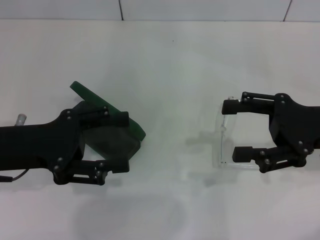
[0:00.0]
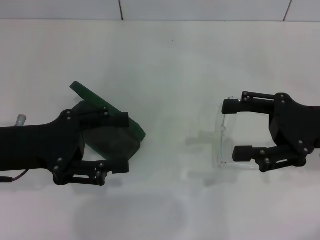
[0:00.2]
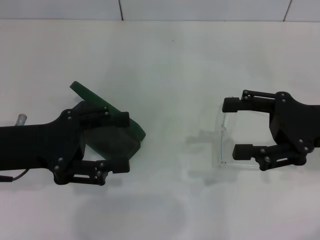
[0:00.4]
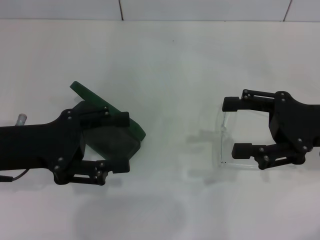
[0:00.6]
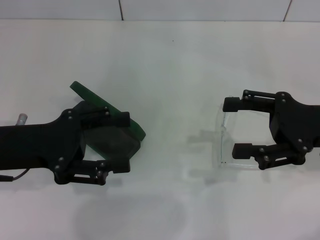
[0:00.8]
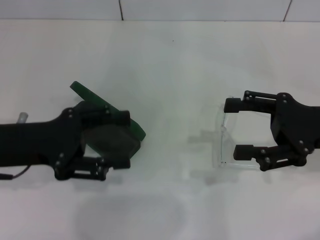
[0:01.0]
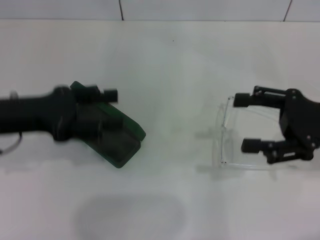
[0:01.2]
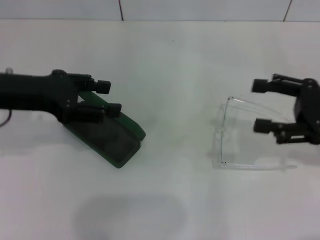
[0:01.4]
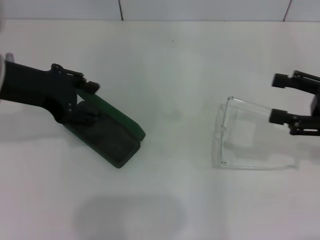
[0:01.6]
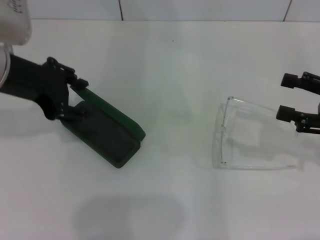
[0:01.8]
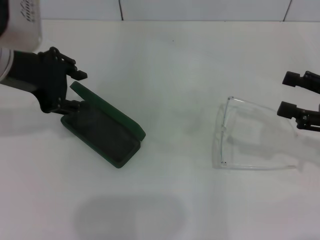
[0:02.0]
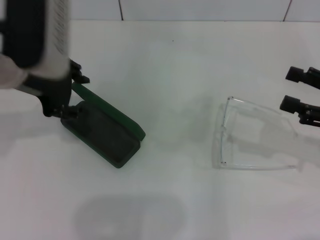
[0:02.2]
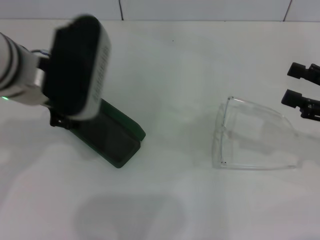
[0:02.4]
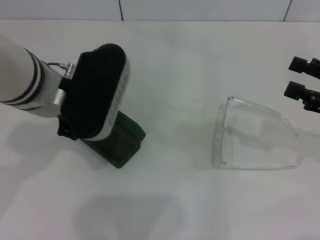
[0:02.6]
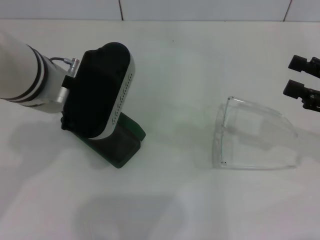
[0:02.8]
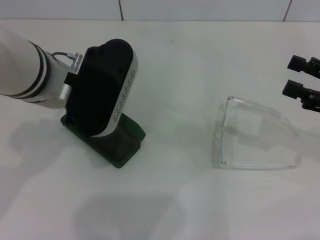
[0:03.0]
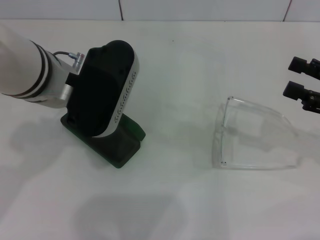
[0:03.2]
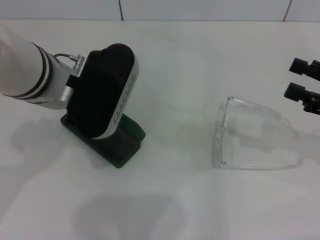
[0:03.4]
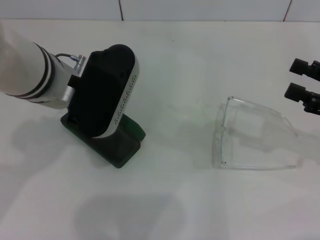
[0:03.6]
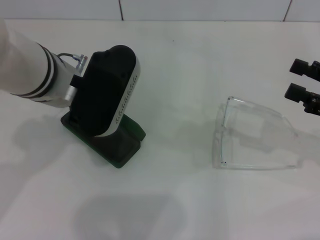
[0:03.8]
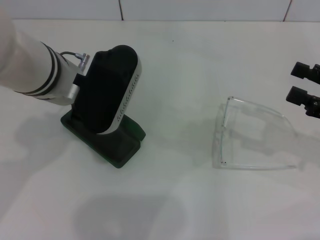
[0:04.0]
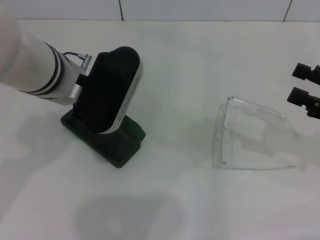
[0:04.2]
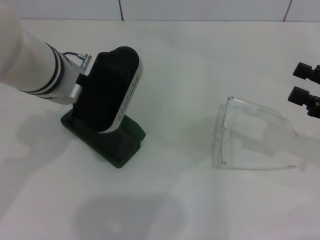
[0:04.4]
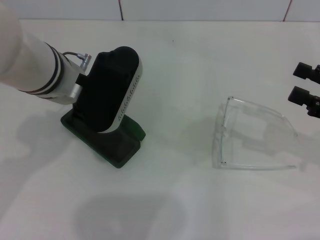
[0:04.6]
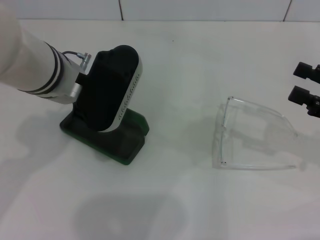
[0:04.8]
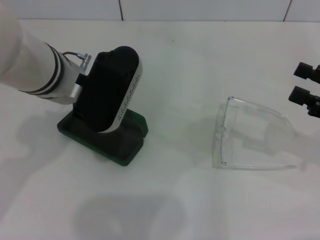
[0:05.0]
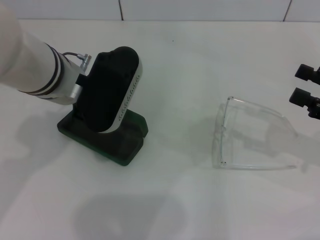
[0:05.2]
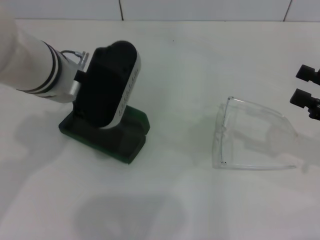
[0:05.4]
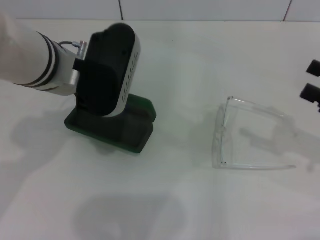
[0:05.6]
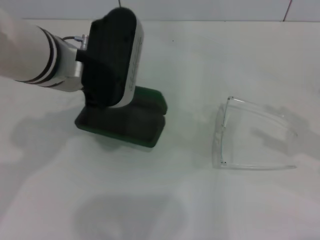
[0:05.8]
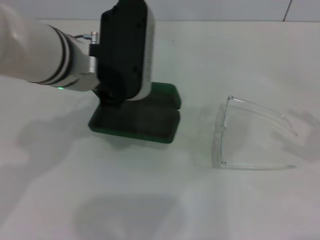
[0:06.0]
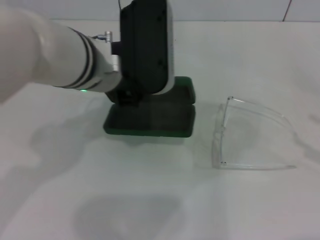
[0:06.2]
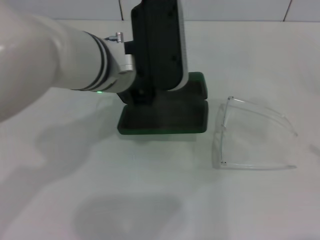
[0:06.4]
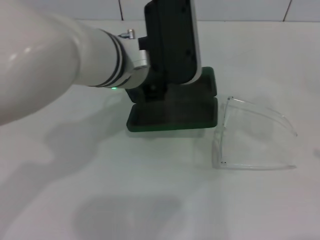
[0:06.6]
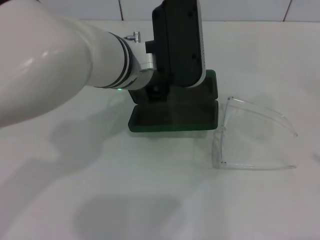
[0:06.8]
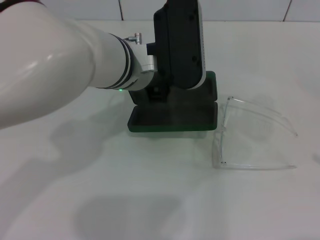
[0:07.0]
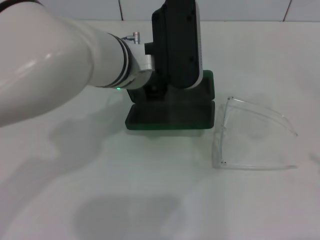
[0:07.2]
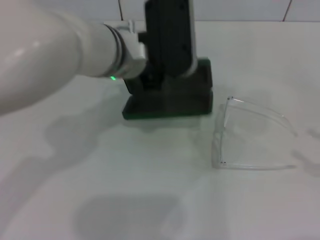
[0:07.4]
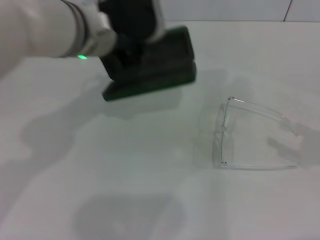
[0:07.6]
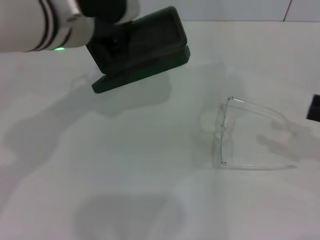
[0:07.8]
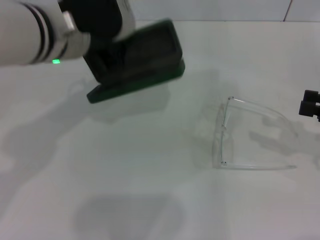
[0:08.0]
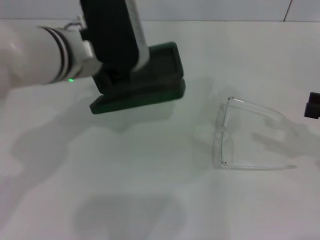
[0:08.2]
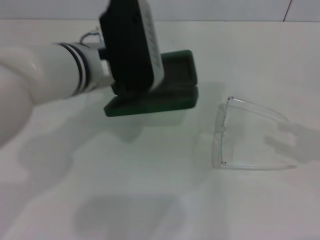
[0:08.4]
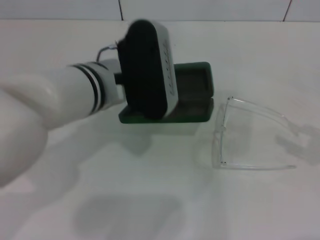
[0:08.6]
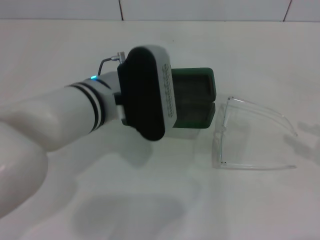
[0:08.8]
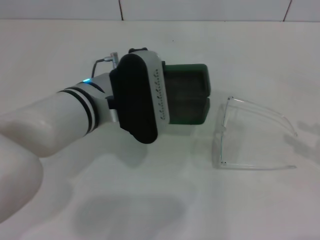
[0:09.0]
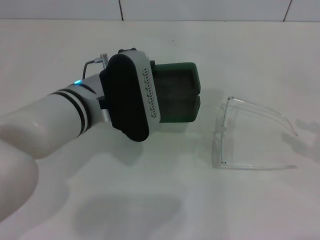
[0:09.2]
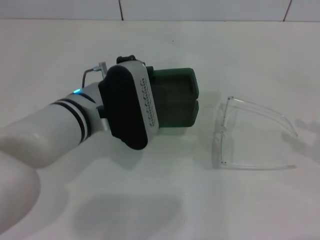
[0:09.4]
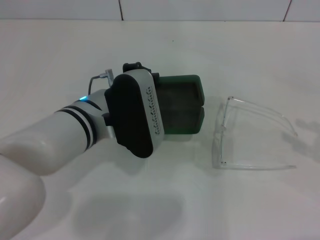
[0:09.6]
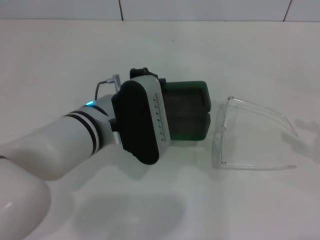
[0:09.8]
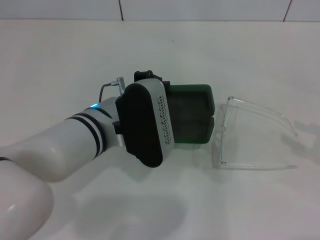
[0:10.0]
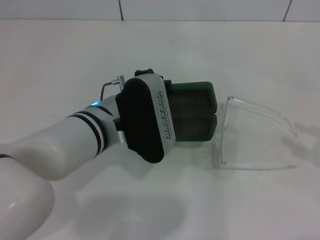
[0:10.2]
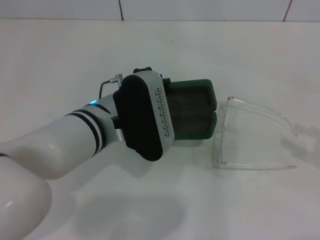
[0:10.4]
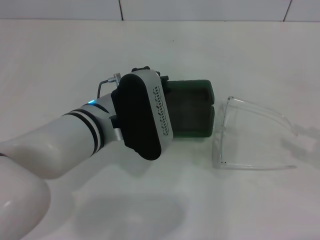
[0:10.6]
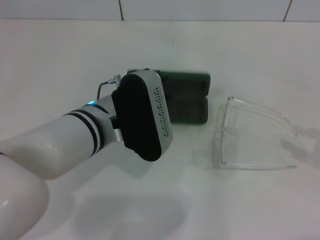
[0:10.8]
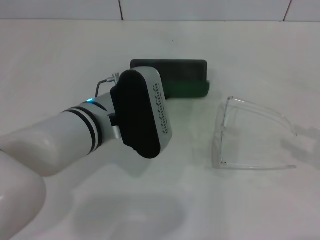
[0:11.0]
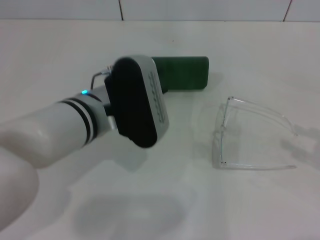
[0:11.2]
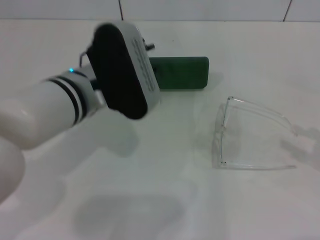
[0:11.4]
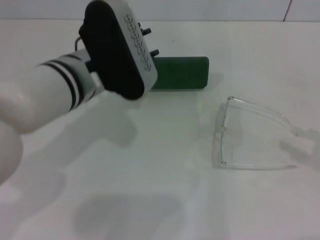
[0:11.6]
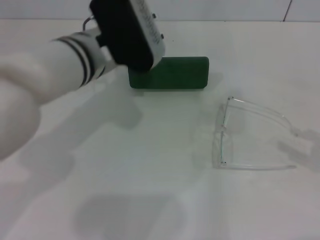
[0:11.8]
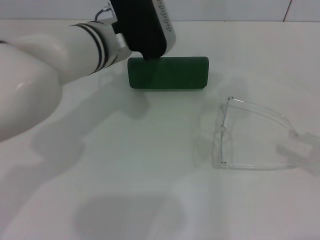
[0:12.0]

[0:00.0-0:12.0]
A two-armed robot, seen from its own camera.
Step, 0:00.0 to 0:04.2: Grab the glasses case with your left hand.
0:00.0 to 0:01.6: The right gripper travels to the right by about 5 cm; the left gripper travels upward and forward by about 10 cm.
0:01.6 to 0:03.0: The left gripper heads to the right, covering roughly 10 cm, and closes.
0:03.0 to 0:04.4: The grippers make only small movements.
0:04.4 to 0:06.0: The right gripper travels to the right by about 5 cm.
0:07.6 to 0:09.0: The left gripper travels downward and backward by about 10 cm.
0:09.0 to 0:10.4: There are only small adjustments of the grippers.
0:10.4 to 0:12.0: The left gripper moves forward and upward, approximately 10 cm, and opens its fingers.

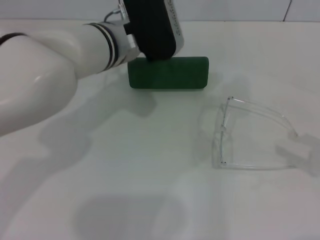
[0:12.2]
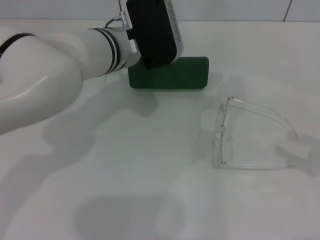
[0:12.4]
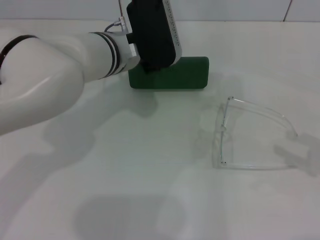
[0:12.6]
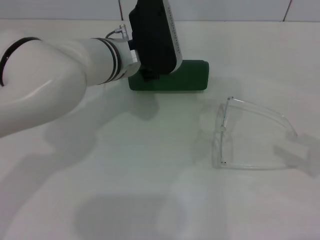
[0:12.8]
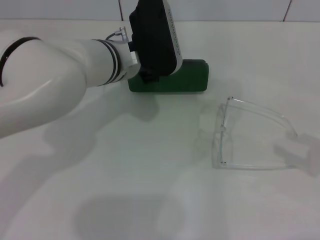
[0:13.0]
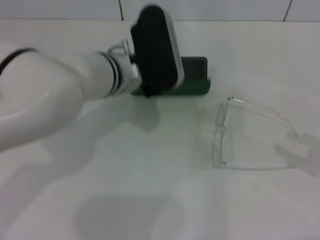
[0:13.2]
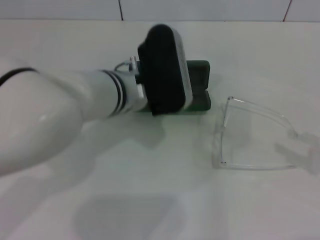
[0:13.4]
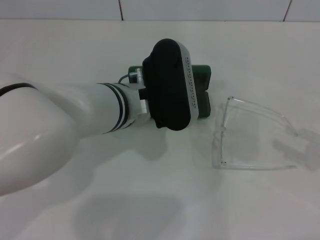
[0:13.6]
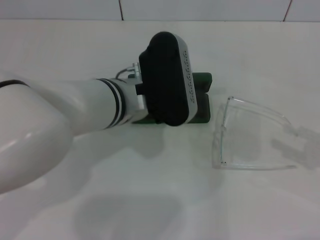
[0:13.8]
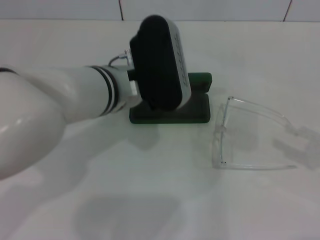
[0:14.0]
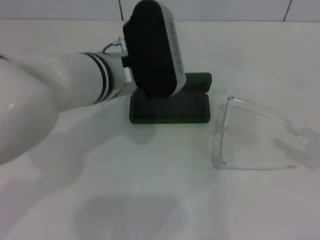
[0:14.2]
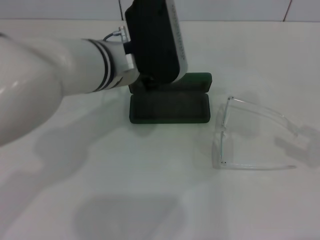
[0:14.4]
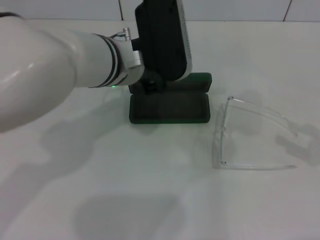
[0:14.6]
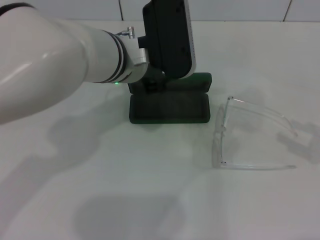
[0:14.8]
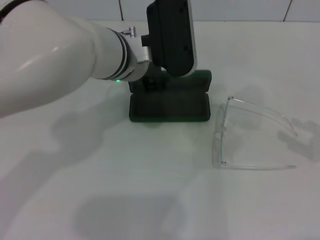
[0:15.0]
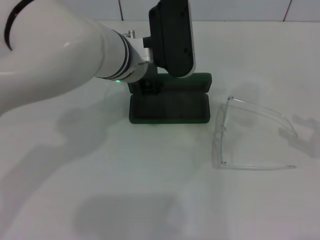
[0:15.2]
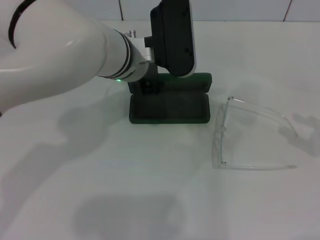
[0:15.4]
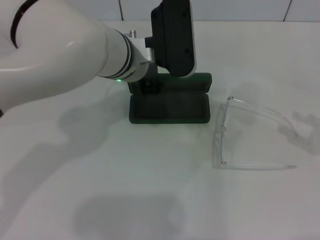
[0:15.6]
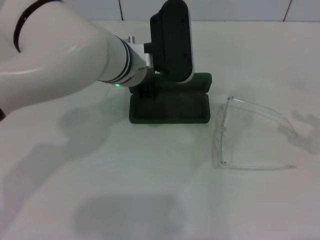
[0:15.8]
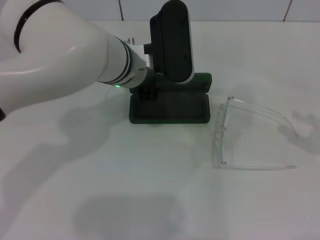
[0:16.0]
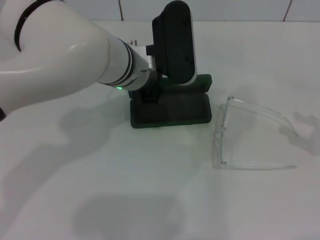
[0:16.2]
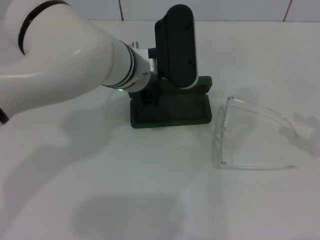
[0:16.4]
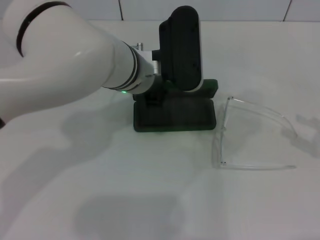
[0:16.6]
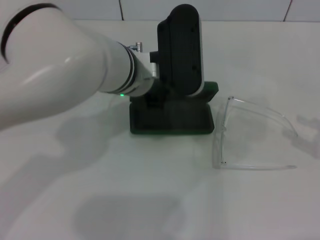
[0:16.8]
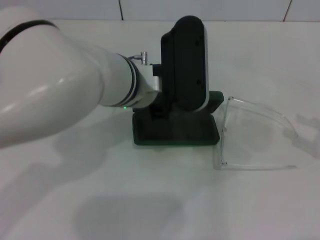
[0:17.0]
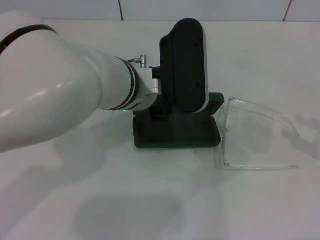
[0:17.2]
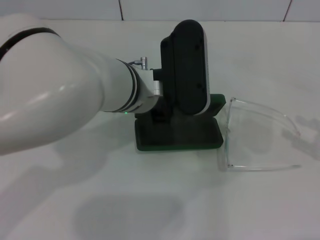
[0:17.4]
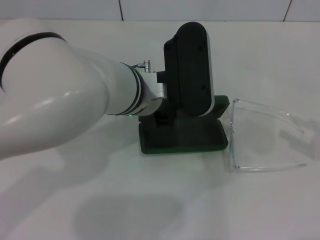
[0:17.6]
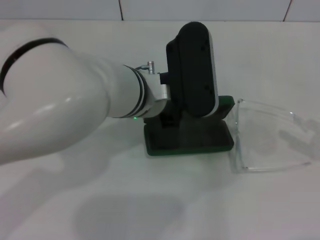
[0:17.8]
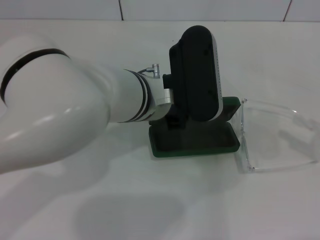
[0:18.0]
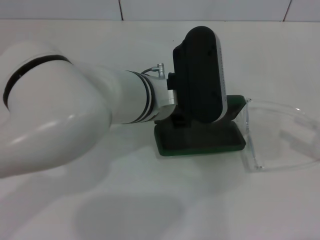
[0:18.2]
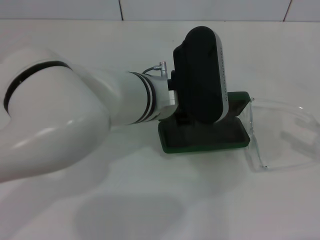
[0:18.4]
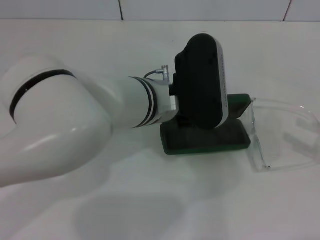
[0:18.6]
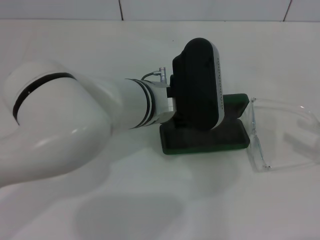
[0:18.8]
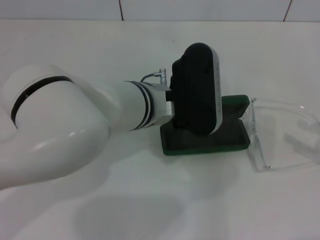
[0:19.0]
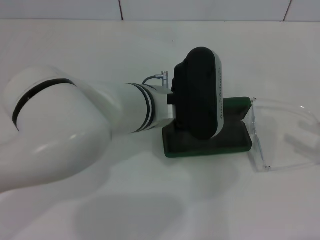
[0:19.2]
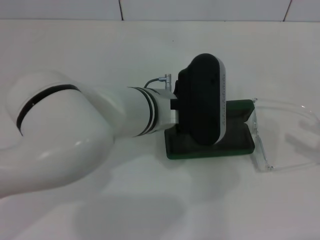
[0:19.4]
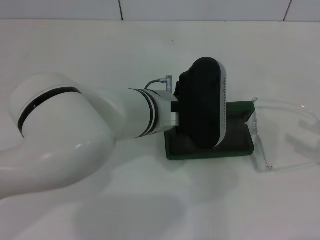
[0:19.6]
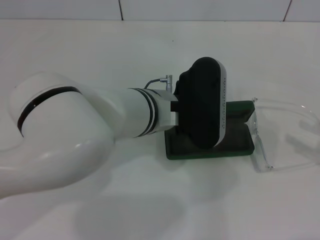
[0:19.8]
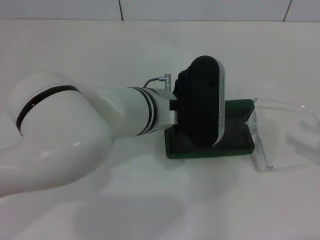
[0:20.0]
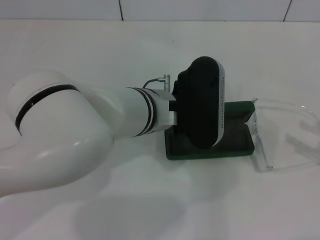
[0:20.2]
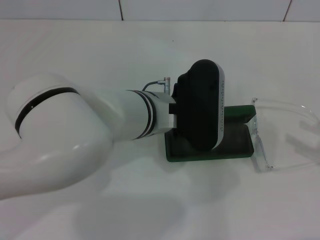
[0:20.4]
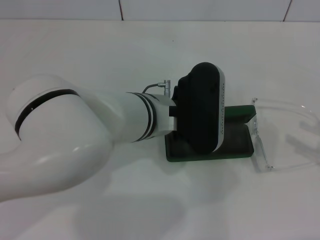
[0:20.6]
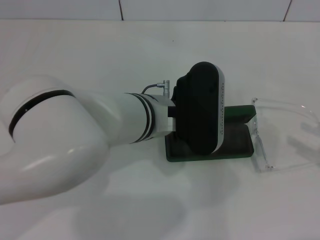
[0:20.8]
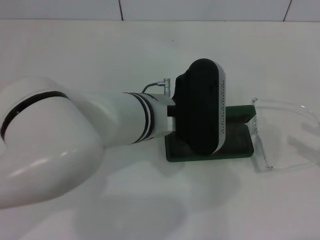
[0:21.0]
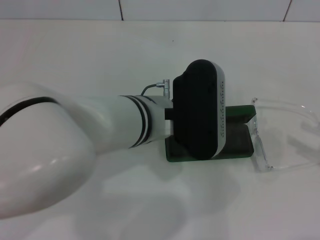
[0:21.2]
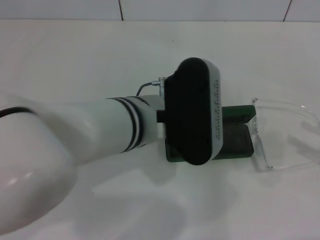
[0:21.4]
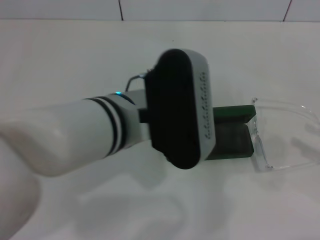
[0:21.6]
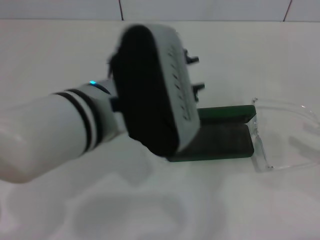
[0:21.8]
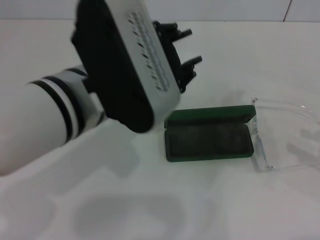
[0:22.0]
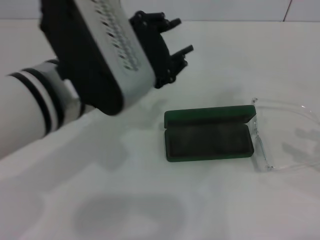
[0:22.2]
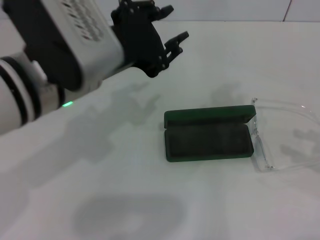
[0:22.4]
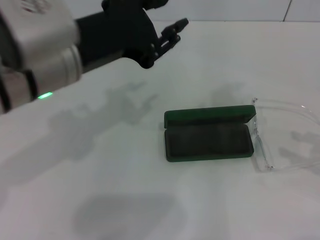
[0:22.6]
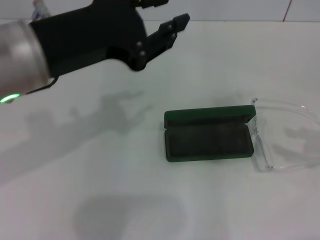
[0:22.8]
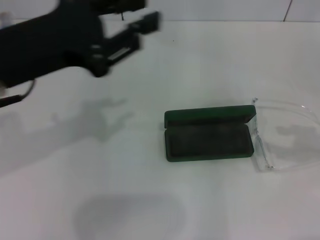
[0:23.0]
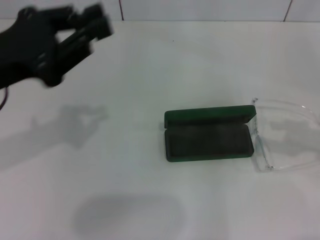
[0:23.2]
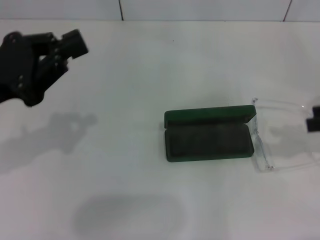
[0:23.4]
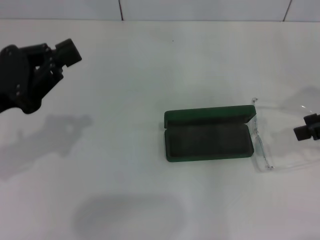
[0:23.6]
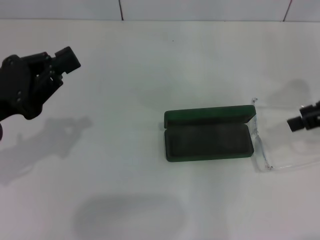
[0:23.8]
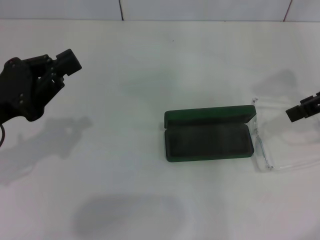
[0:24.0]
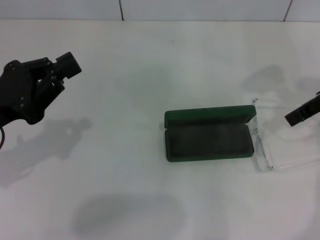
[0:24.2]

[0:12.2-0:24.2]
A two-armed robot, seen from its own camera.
Step, 0:12.2 to 0:20.8: Place the glasses case in the center of the table with your left hand.
0:12.2 to 0:13.8: The left gripper heads backward, covering roughly 5 cm.
0:13.8 to 0:15.2: The left gripper shifts some 5 cm forward.
0:15.2 to 0:16.6: The left gripper closes up.
0:16.6 to 0:18.2: The left gripper changes place by roughly 5 cm.
0:18.2 to 0:21.2: The grippers make only small movements.
0:21.2 to 0:22.6: The left gripper goes approximately 15 cm to the left and upward.
0:22.6 to 0:24.2: The right gripper goes some 20 cm to the left, upward and forward, while the left gripper goes about 15 cm to the left and downward, and closes its fingers.
